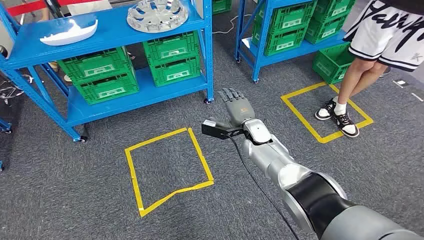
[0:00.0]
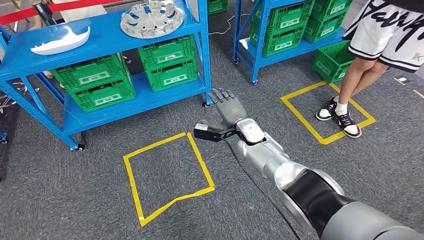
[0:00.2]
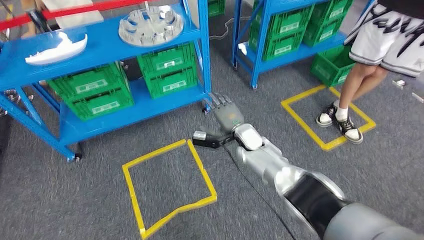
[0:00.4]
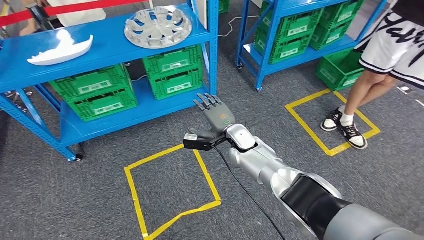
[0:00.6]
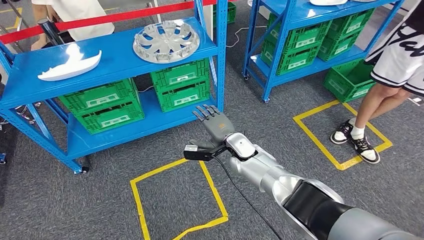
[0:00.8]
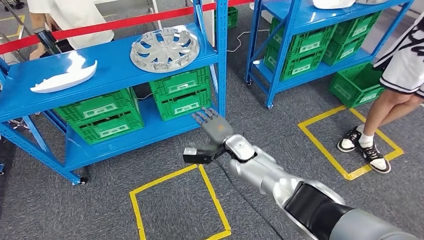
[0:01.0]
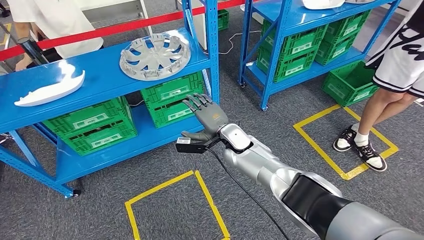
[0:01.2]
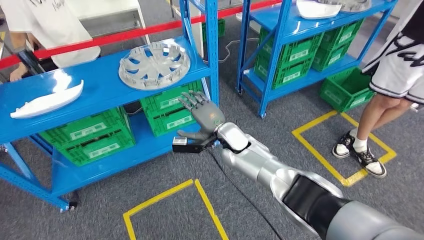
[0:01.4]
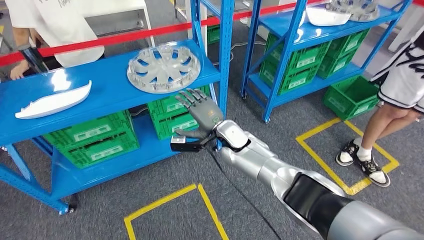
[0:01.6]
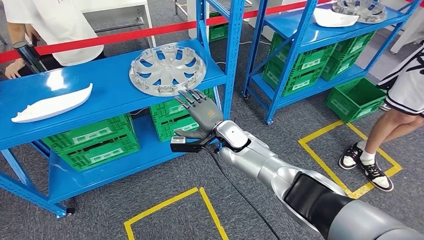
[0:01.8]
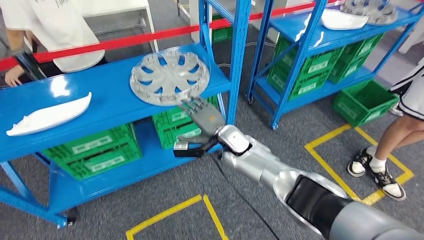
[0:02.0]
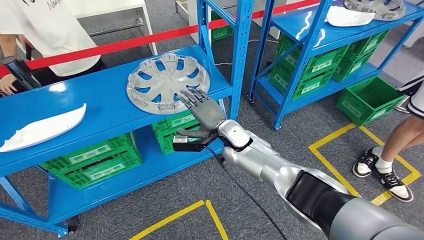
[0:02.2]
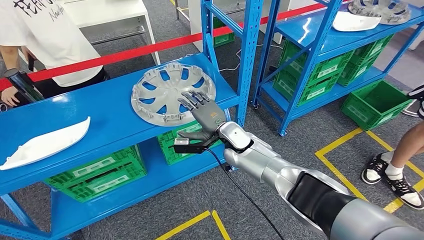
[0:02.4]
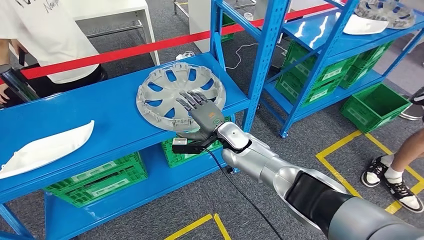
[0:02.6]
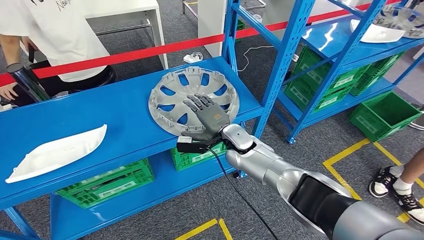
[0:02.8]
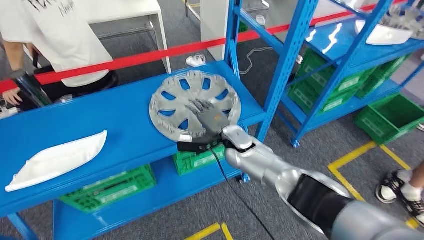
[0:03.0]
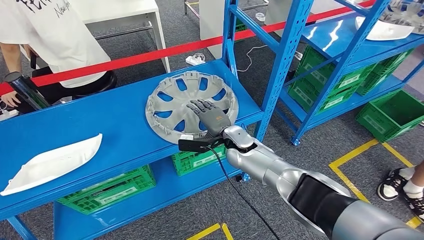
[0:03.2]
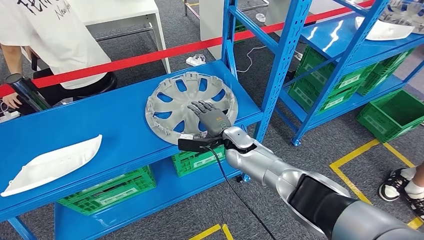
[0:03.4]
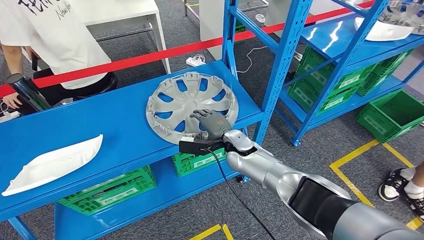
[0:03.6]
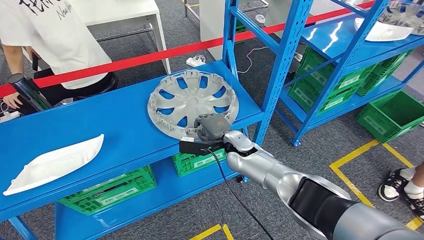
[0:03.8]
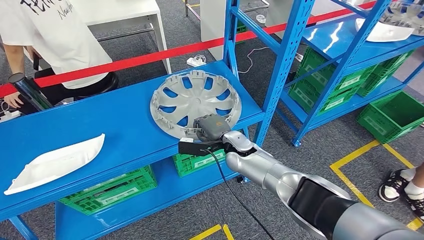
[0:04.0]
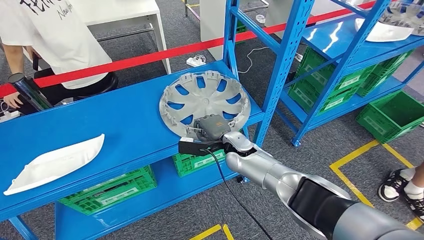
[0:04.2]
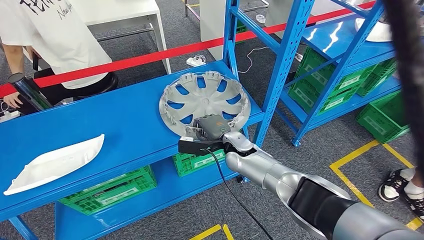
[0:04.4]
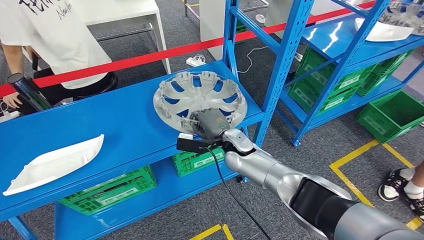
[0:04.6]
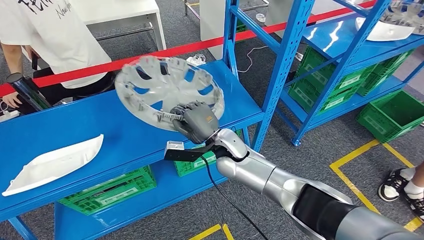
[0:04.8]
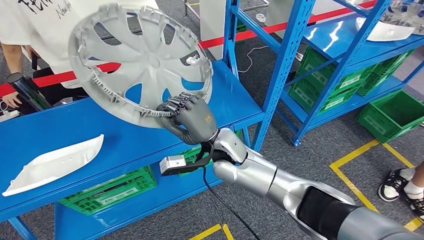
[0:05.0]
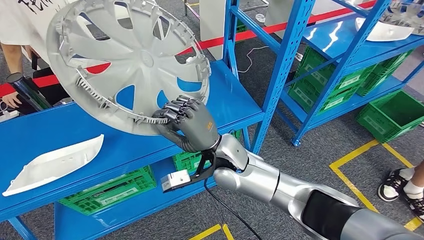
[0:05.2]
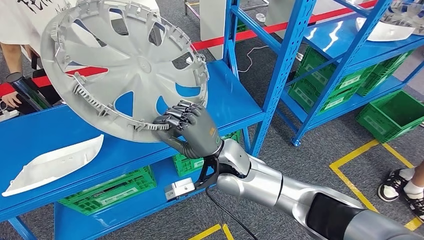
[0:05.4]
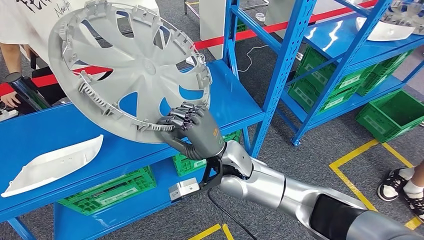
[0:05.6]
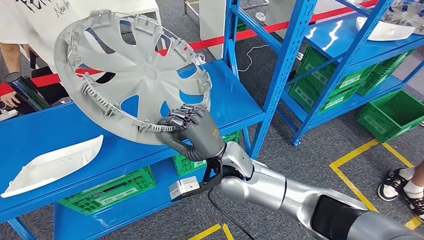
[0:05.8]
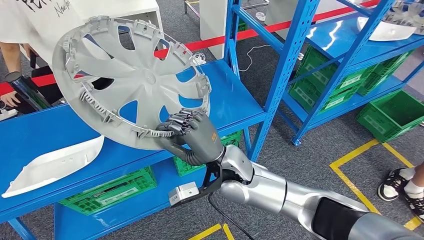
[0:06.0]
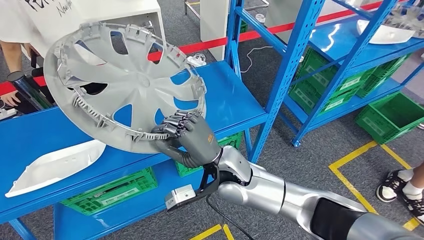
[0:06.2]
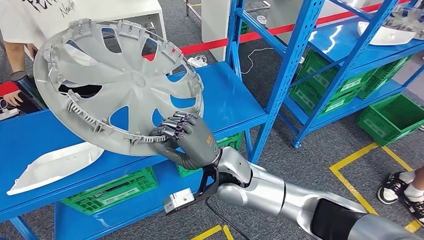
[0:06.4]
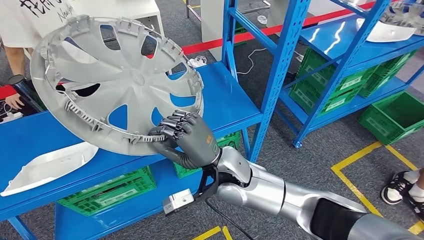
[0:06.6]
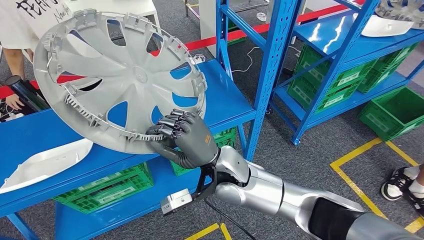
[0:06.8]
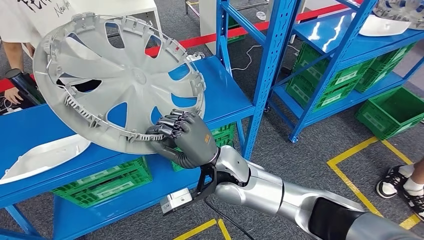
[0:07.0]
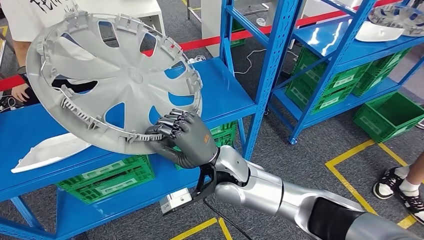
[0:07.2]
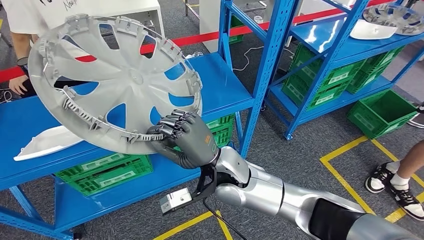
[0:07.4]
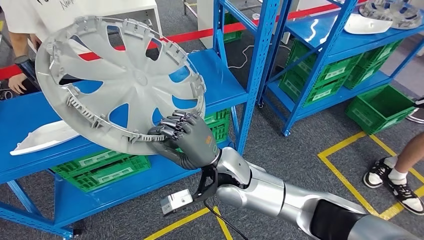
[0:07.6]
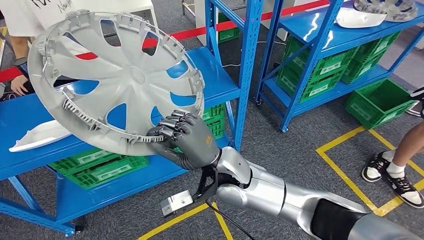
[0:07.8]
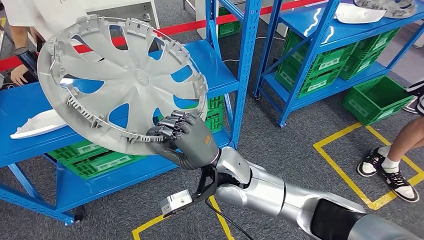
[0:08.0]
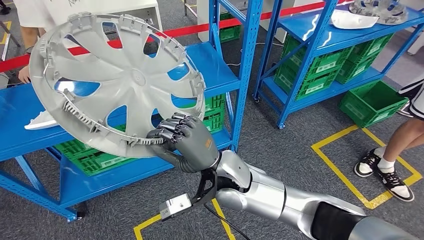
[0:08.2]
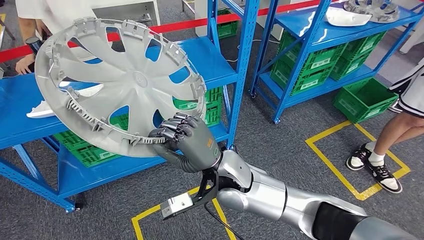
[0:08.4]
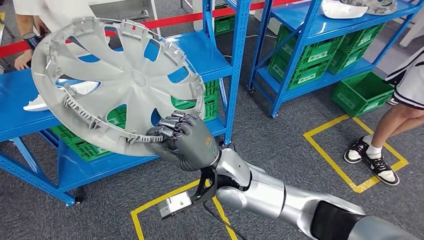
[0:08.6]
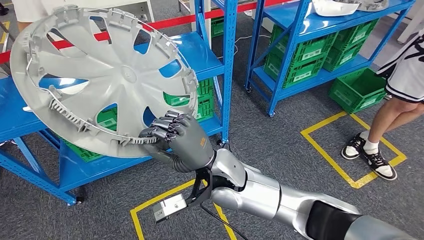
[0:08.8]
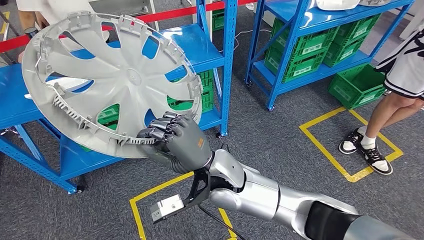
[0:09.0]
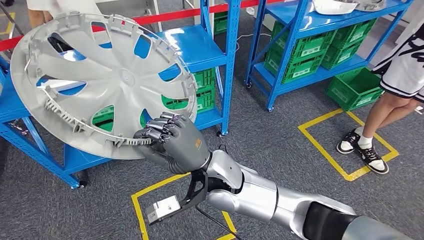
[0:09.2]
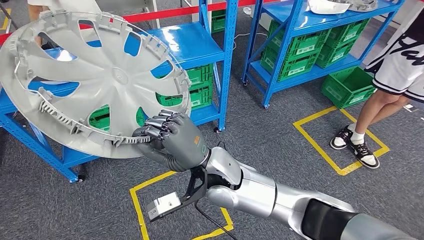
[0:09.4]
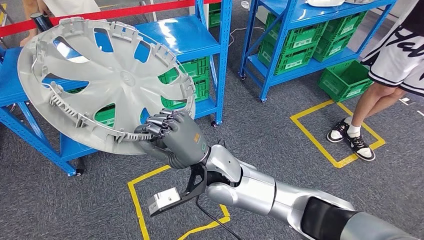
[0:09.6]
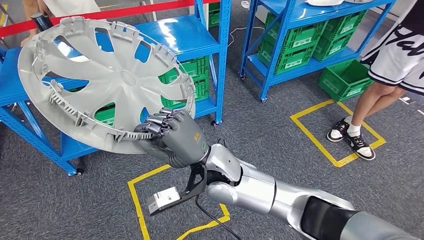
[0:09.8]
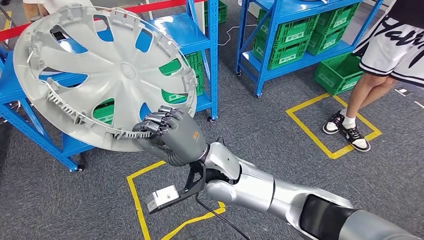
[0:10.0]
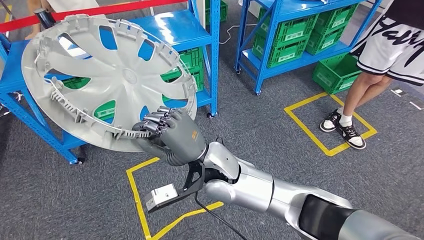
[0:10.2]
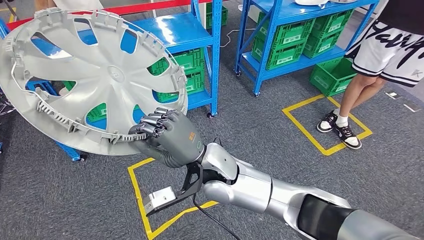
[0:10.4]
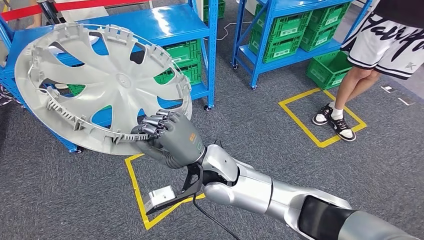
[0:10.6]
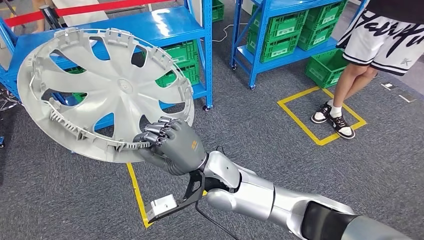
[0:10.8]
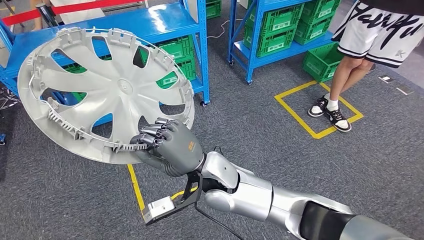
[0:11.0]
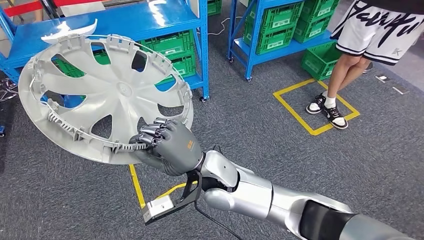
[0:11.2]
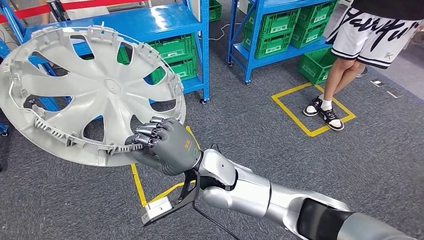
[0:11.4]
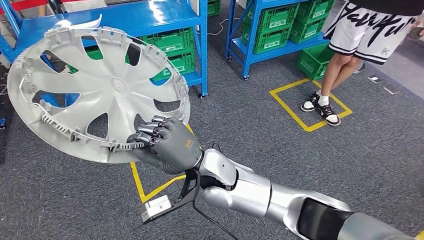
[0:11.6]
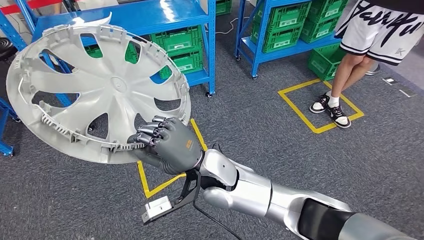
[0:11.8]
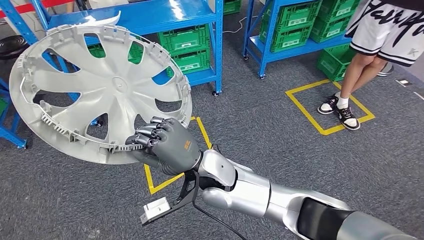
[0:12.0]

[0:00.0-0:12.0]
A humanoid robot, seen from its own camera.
Step, 0:00.0 to 0:07.8: Pick up the small component from the shelf.

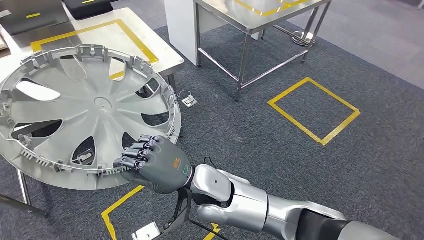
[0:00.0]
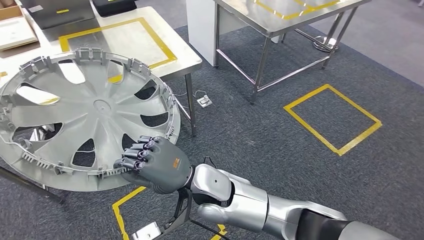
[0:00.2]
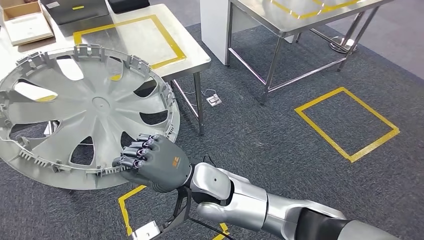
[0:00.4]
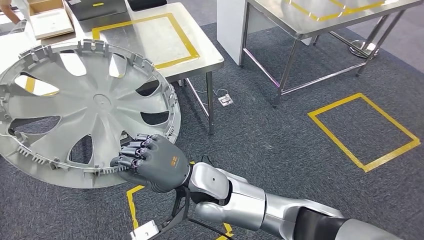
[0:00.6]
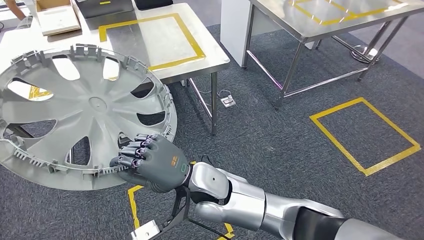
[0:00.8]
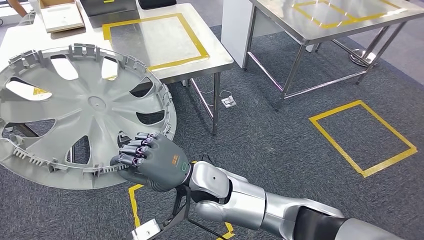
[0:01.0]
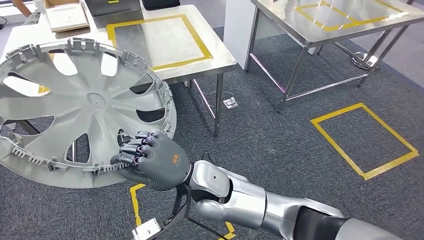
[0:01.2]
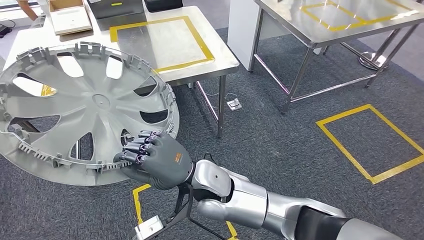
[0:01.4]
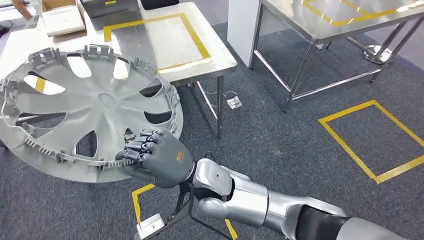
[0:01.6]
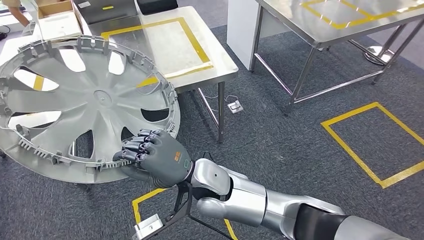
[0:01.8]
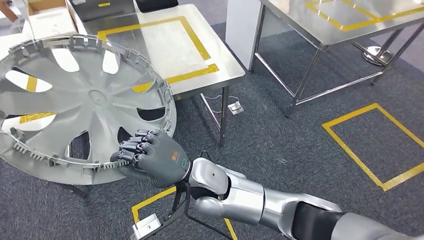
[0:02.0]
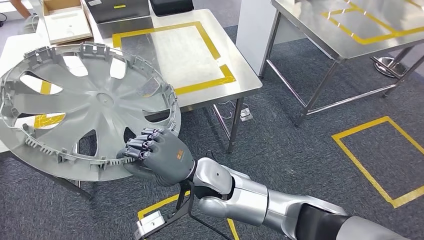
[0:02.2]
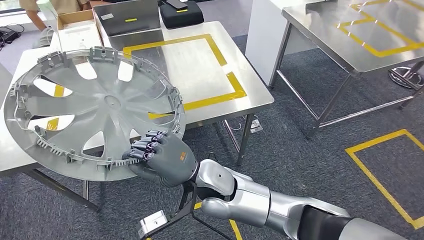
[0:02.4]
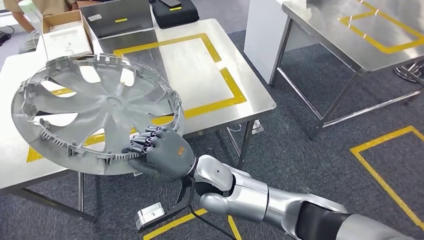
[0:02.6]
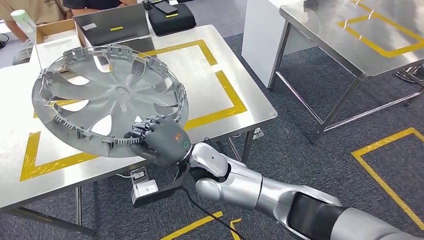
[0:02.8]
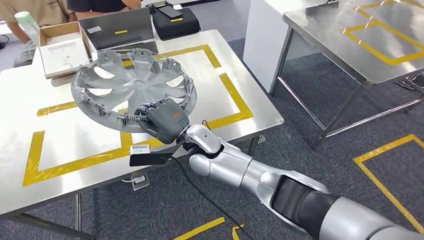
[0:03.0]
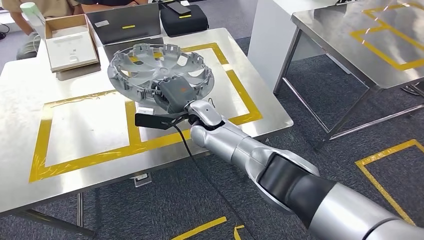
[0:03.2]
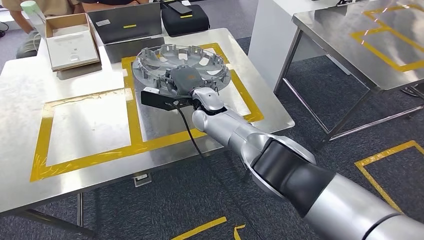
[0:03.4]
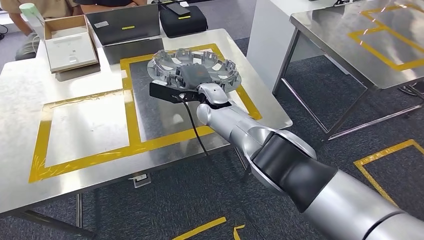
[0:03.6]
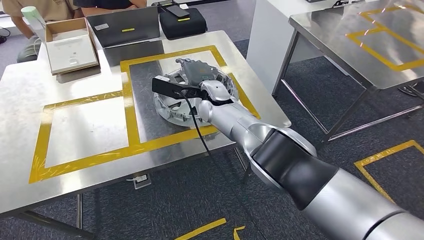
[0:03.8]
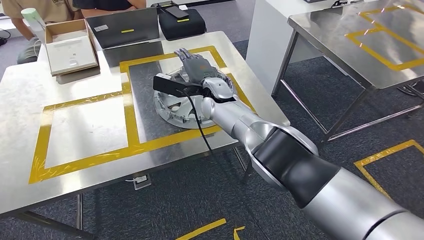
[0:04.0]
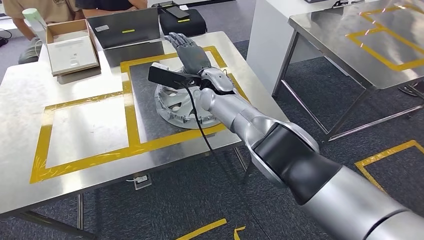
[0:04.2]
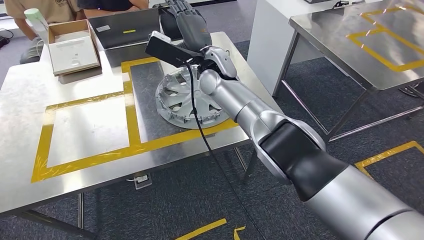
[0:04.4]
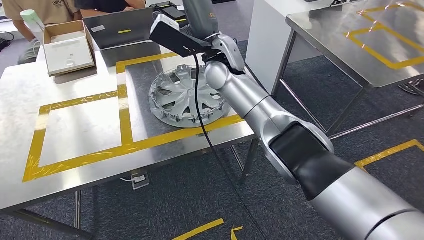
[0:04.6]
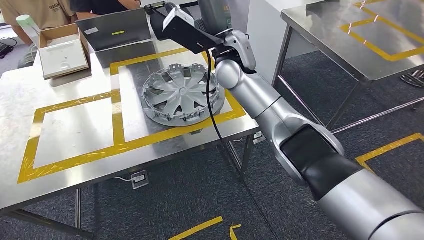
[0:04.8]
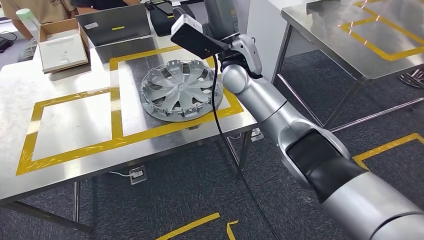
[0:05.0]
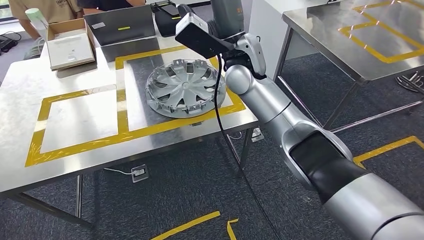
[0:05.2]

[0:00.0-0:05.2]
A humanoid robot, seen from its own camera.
Step, 0:00.0 to 0:02.8: Bring the small component to the front of the workbench.
Step, 0:03.0 to 0:05.2: Insert the small component into the corresponding slot on the workbench.
